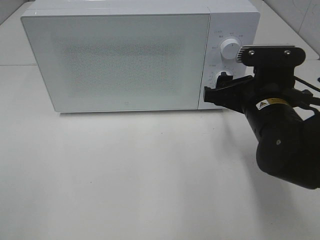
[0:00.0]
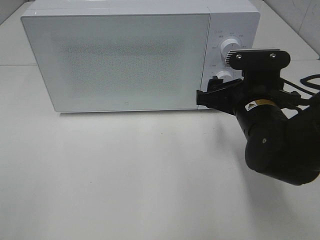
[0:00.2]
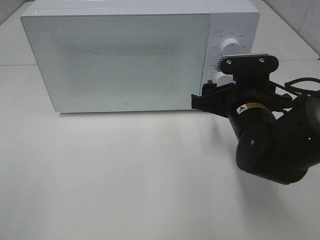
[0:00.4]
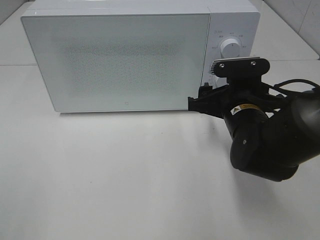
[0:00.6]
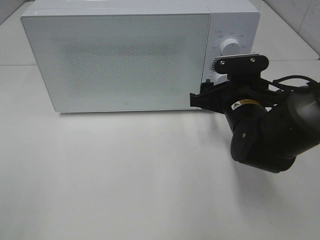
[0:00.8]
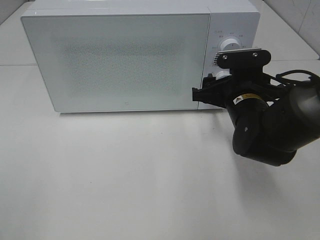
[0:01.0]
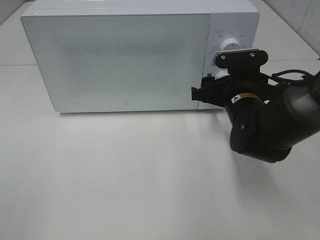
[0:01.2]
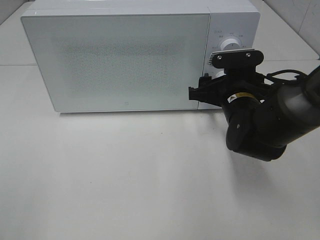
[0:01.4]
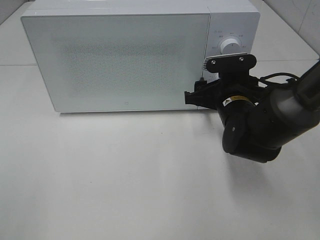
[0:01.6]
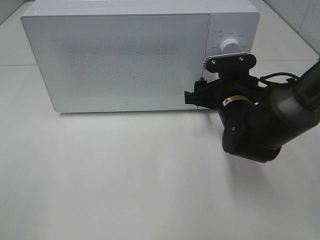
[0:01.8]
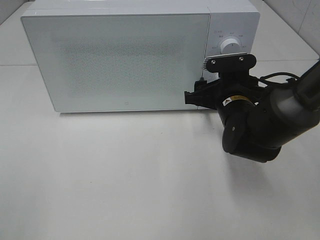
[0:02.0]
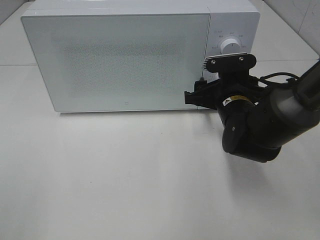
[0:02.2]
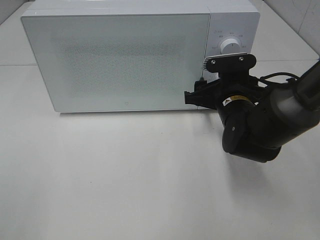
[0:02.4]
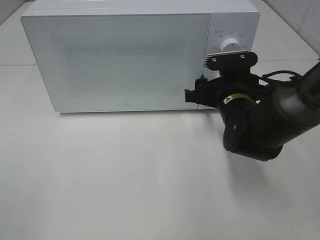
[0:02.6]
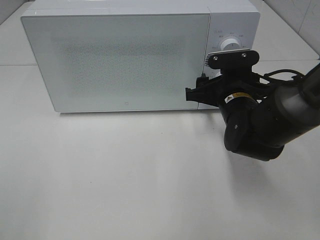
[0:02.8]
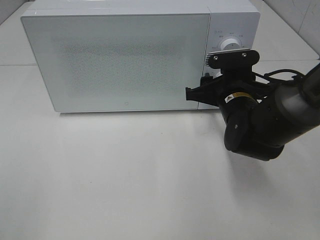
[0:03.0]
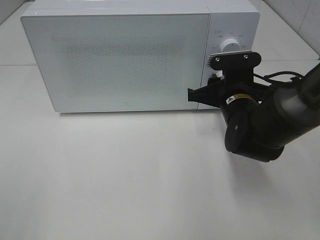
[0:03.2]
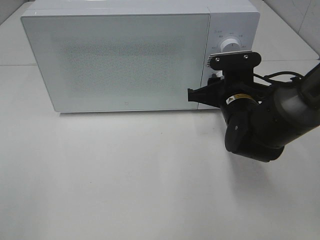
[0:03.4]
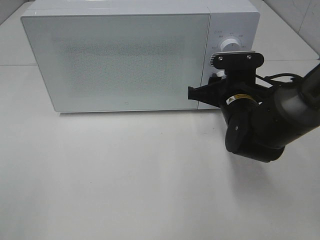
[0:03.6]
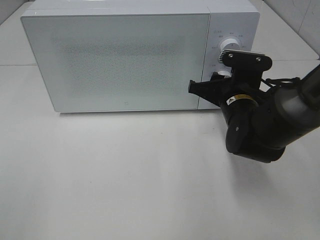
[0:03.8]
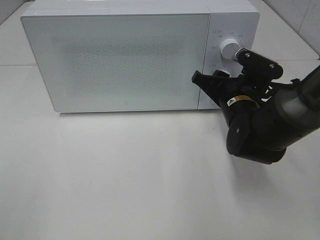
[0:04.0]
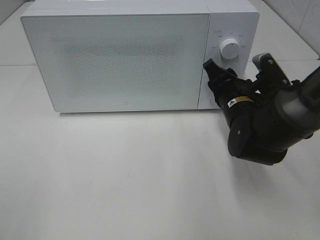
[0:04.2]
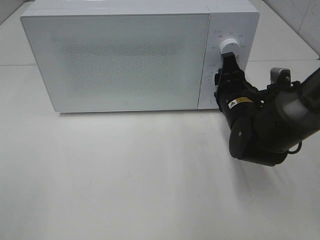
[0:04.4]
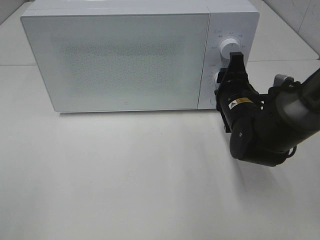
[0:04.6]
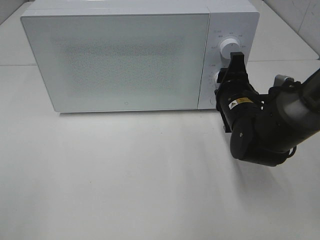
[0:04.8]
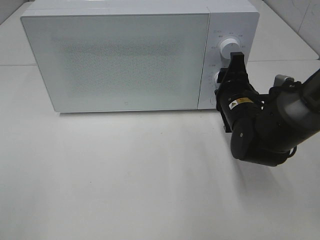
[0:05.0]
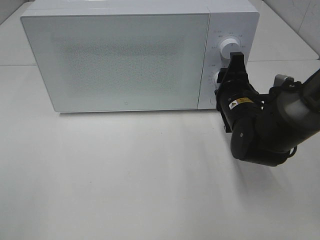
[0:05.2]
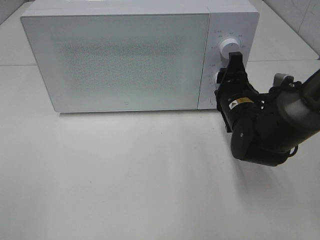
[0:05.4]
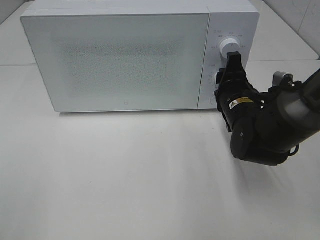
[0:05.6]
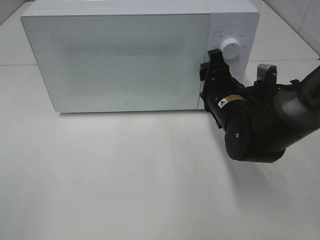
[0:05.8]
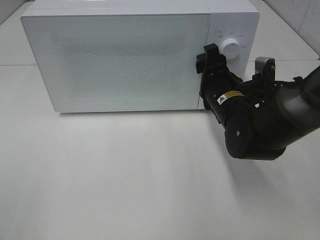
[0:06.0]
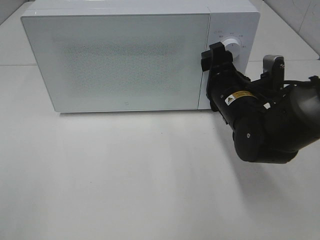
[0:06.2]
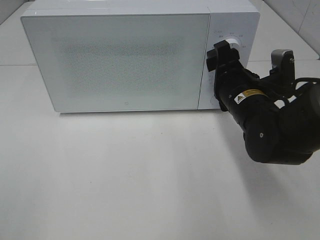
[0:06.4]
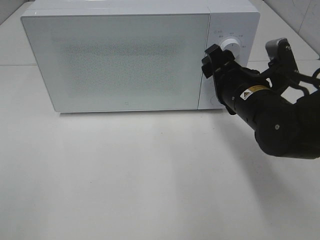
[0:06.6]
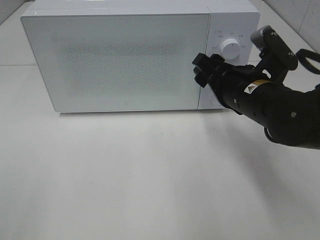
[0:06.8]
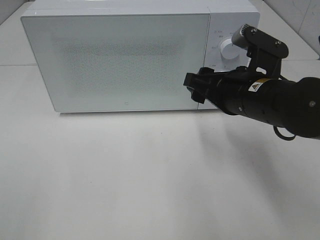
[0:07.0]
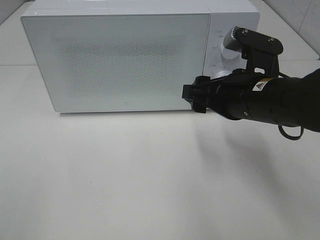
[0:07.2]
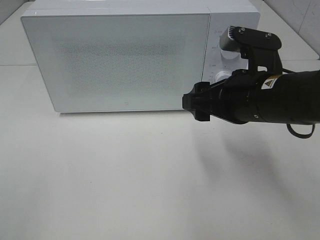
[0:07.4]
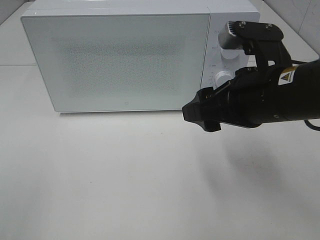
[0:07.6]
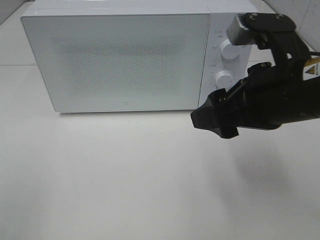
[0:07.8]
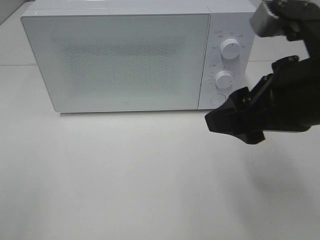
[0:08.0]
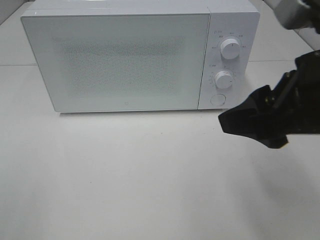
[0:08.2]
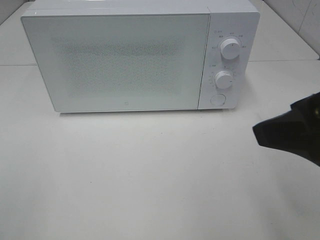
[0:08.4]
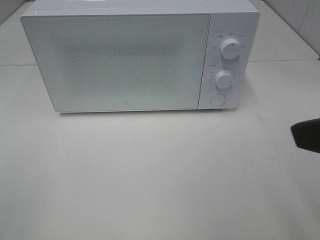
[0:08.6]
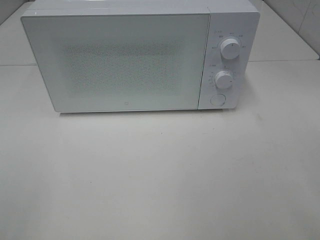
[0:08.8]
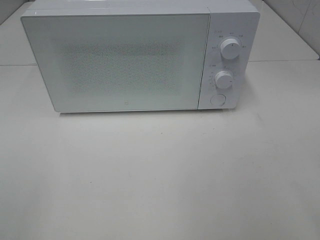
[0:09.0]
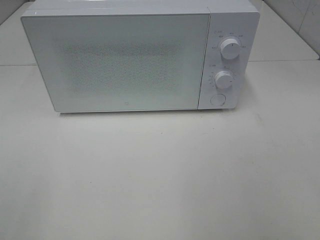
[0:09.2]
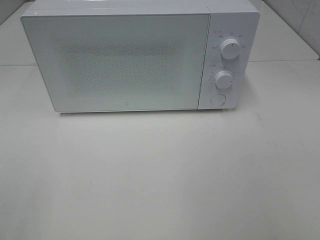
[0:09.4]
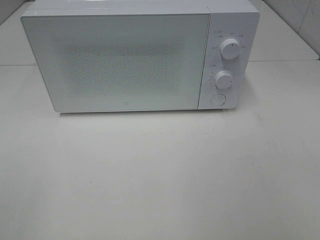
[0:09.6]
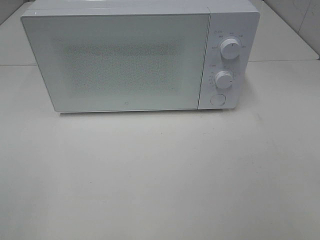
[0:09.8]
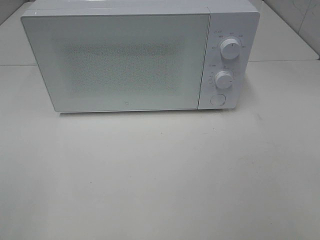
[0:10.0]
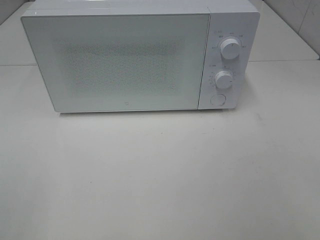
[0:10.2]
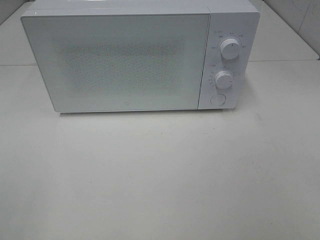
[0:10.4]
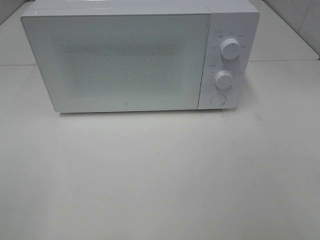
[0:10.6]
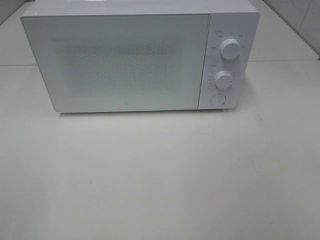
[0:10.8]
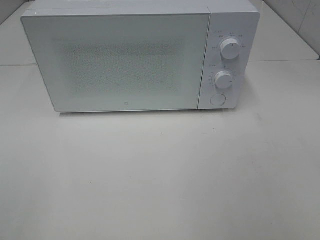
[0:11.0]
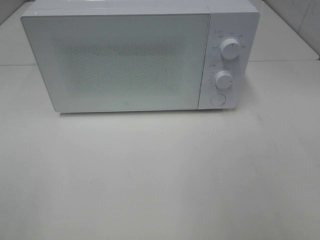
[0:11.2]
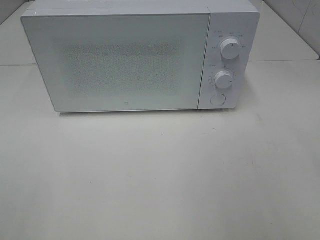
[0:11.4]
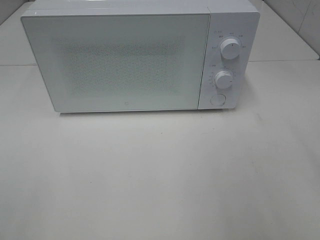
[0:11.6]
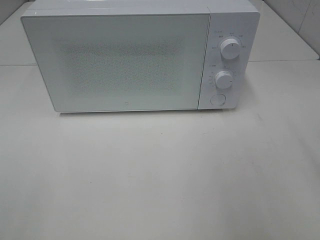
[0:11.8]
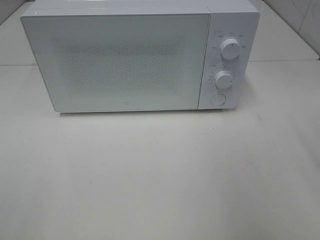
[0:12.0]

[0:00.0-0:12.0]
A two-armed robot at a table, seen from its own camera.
Task of the whole recording: Heat the burger.
Step, 0:00.0 to 0:05.6: Right hand: twist timer button.
0:00.0 to 0:01.6: The right gripper travels forward by roughly 5 cm.
0:01.6 to 0:03.0: Both grippers stay about where they are.
0:04.4 to 0:06.0: The grippers move only a little.
0:06.0 to 0:07.6: The right gripper moves backward and upward, approximately 15 cm.
0:07.6 to 0:09.0: The right gripper moves backward, to the right and upward, about 20 cm.

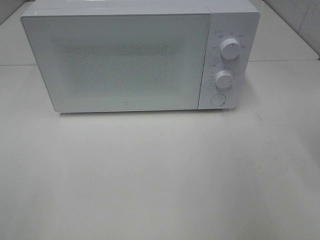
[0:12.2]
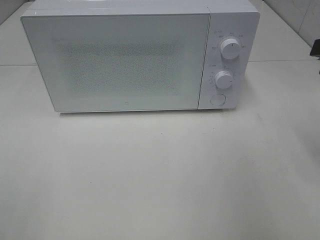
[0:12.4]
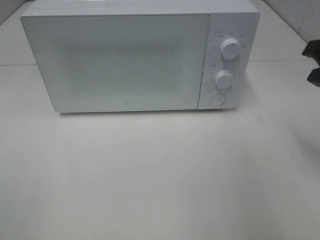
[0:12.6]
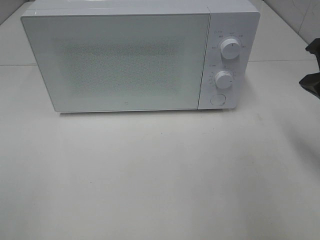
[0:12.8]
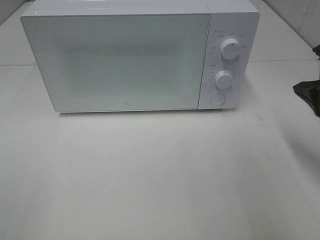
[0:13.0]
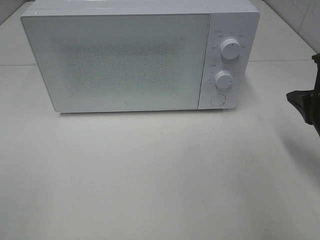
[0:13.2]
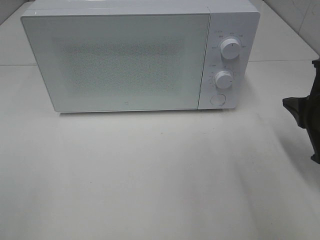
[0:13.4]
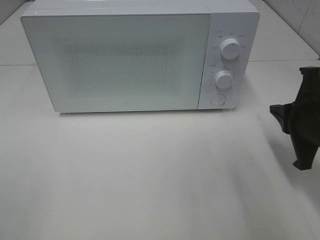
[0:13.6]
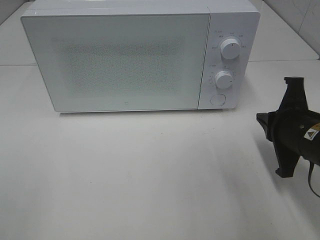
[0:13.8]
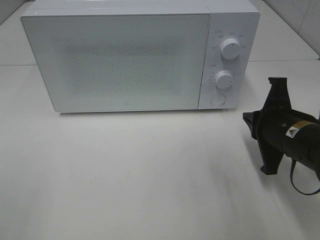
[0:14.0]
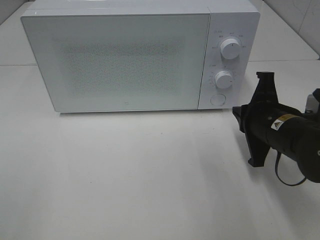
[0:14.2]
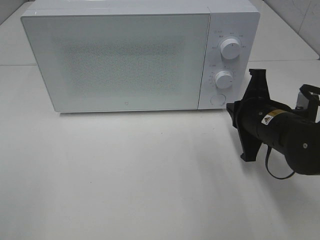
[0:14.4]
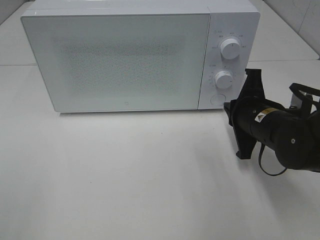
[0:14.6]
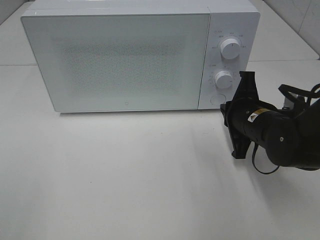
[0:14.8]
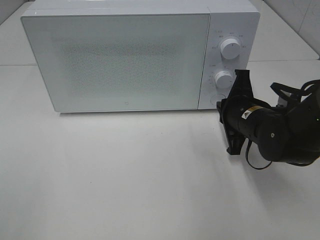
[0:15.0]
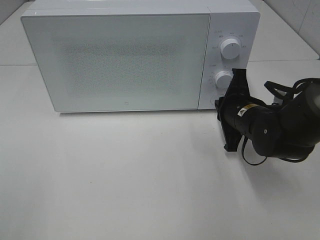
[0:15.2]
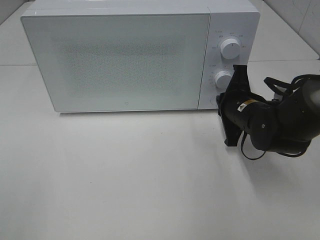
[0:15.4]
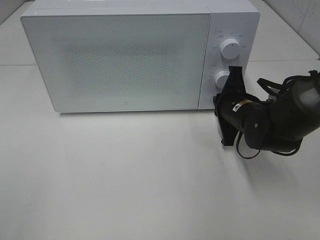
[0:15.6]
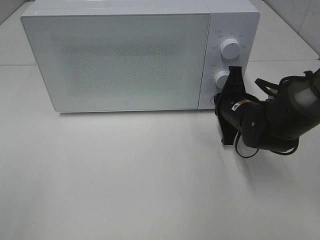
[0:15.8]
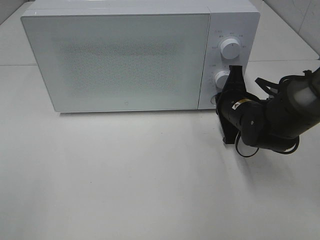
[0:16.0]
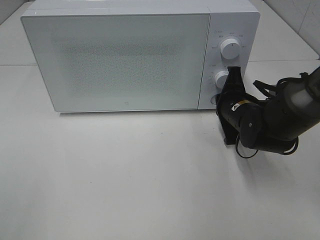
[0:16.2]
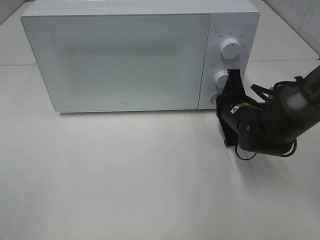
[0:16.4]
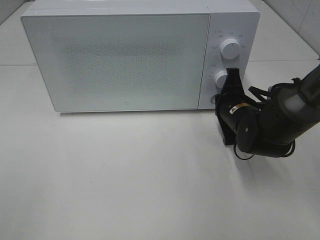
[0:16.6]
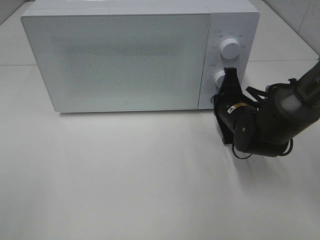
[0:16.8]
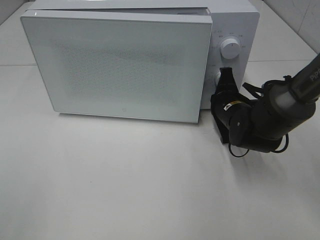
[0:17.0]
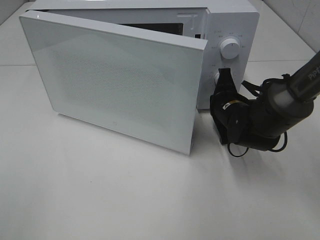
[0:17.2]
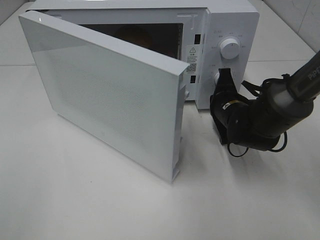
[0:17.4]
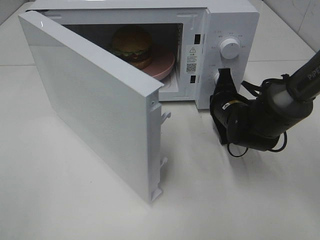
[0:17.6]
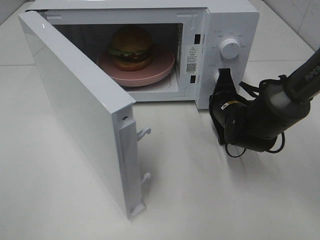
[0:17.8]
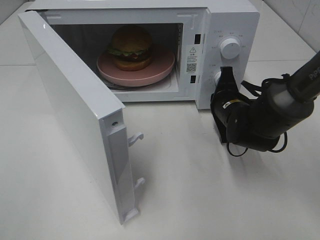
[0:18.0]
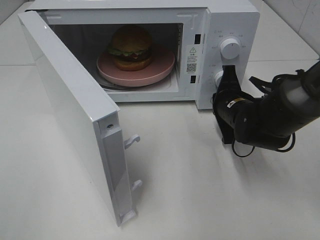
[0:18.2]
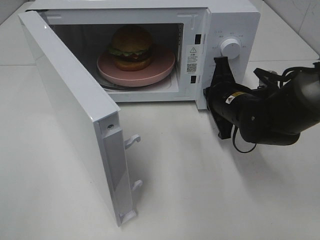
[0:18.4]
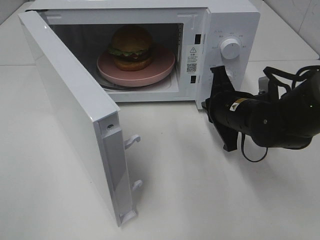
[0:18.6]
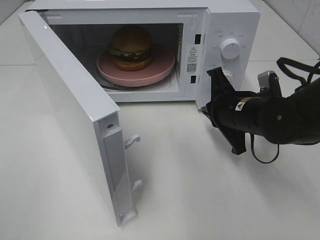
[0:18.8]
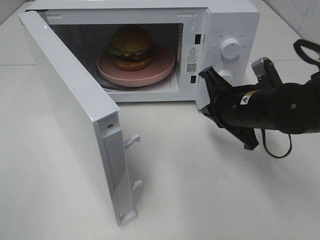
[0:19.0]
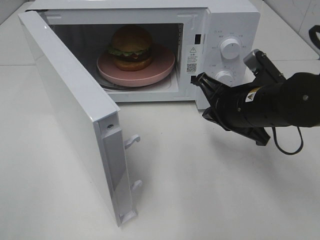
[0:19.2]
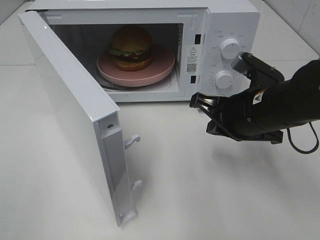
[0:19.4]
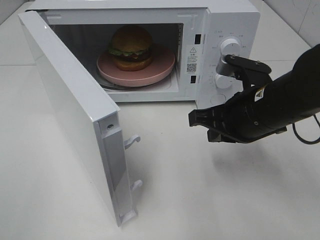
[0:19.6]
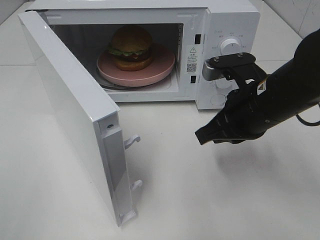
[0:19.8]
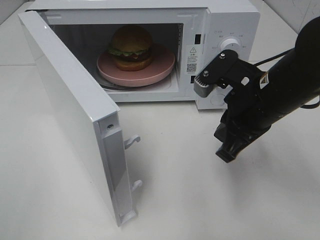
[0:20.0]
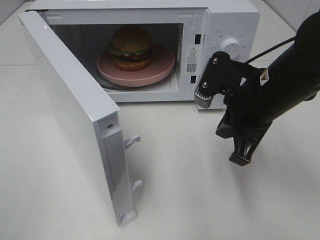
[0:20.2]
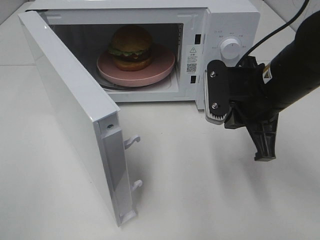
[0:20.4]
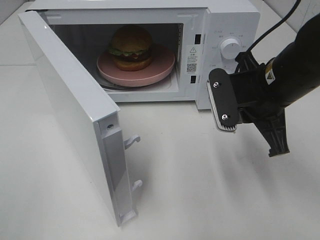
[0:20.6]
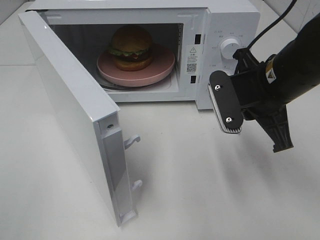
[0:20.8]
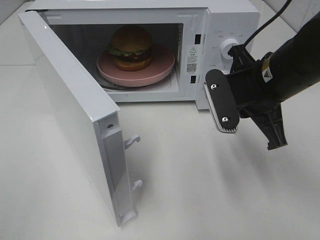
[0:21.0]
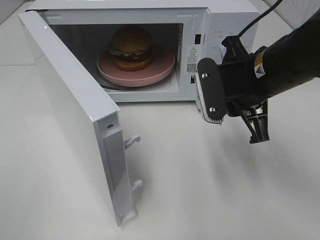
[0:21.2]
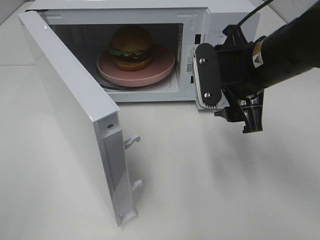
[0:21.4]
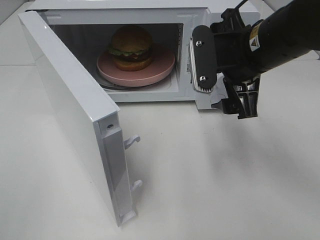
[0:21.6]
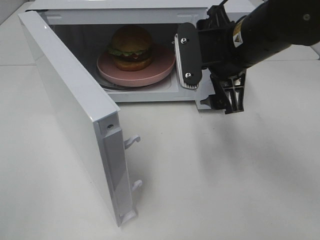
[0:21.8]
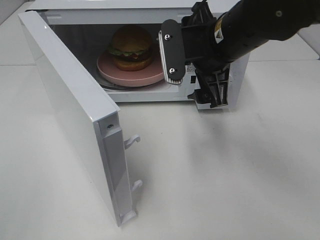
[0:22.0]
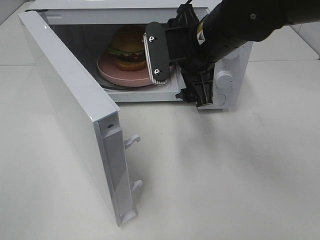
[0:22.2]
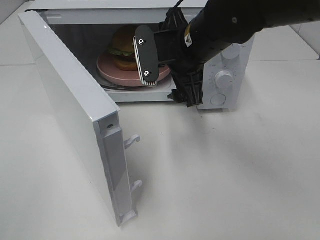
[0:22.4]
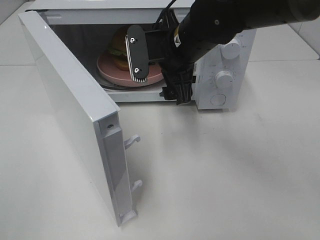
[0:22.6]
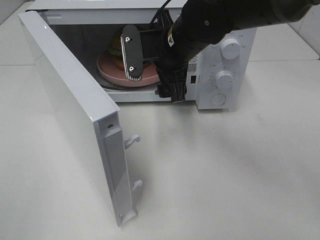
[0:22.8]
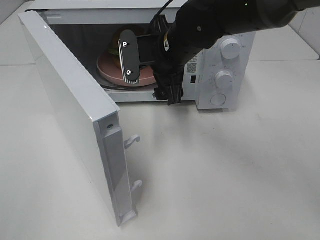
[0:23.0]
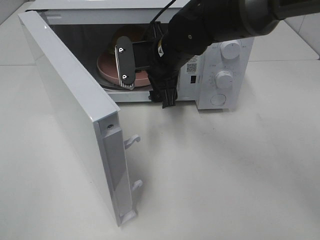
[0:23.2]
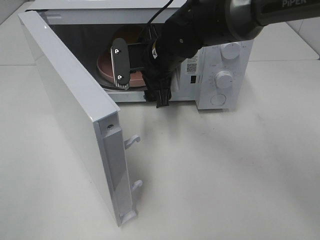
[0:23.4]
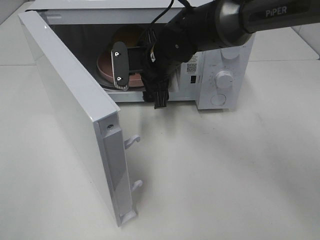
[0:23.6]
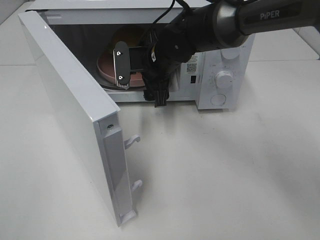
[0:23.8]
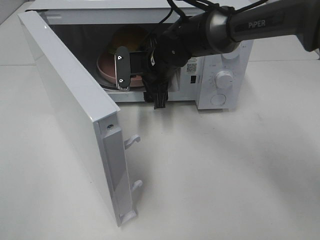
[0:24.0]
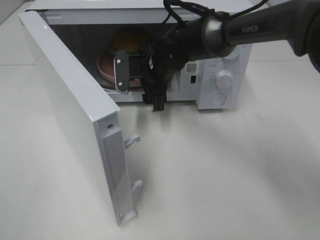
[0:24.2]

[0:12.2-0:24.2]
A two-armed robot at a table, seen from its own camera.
Task of the whole recording: Heat the burger.
Step, 0:12.2 to 0:18.2: Right hand: press the switch.
0:12.2 to 0:13.8: The right gripper is displaced downward by about 15 cm.
0:13.8 to 0:15.2: The right gripper shifts roughly 10 cm forward and to the left.
0:15.2 to 0:16.6: The grippers move only a little.
0:18.2 to 0:19.8: The right gripper moves upward and backward, approximately 15 cm.
0:19.8 to 0:21.2: The right gripper opens up.
0:21.2 to 0:22.6: The right gripper moves to the left and forward, some 10 cm, and opens up.
0:22.6 to 0:24.2: The right gripper travels downward and forward by some 10 cm.
